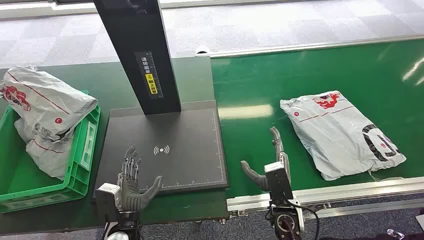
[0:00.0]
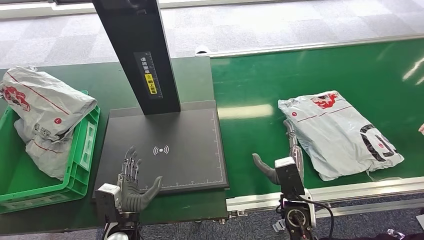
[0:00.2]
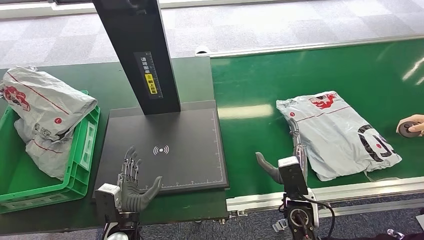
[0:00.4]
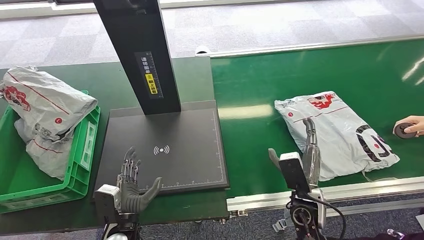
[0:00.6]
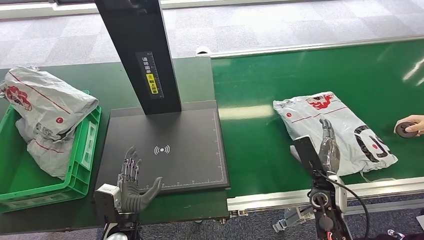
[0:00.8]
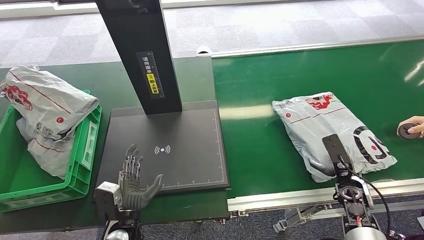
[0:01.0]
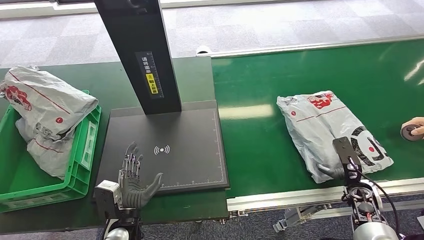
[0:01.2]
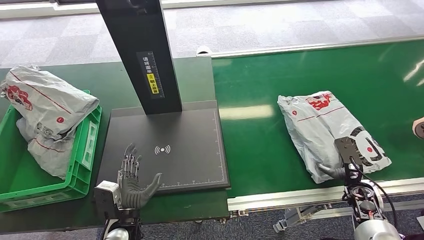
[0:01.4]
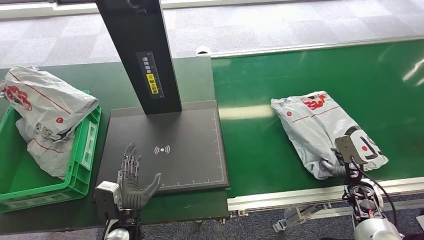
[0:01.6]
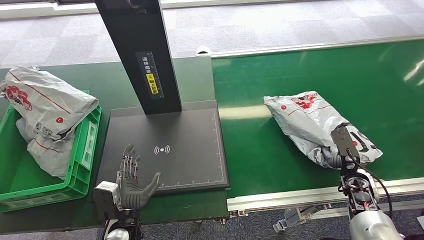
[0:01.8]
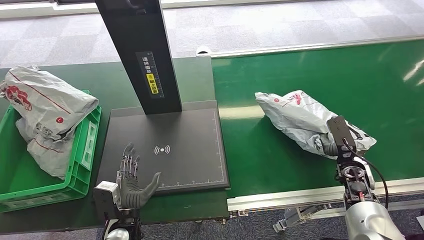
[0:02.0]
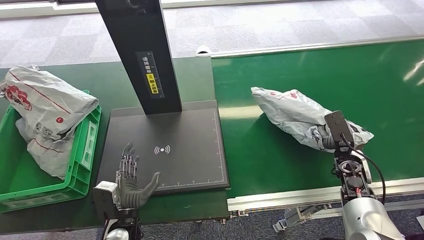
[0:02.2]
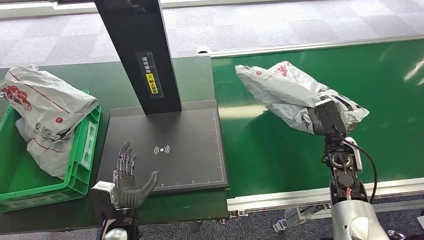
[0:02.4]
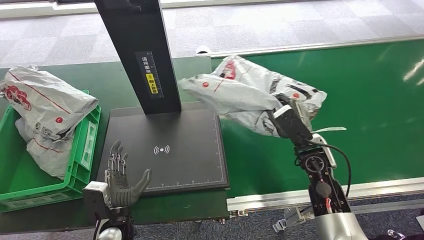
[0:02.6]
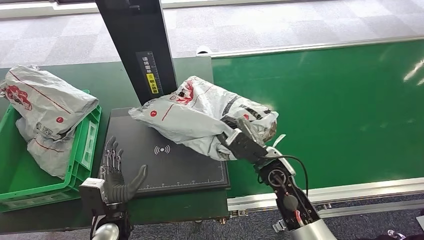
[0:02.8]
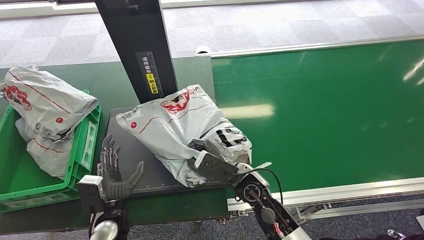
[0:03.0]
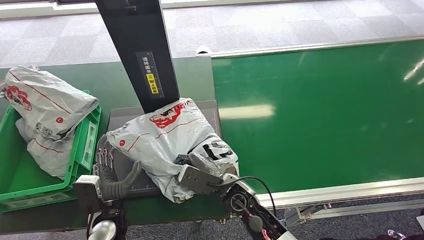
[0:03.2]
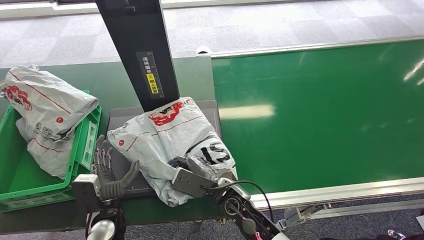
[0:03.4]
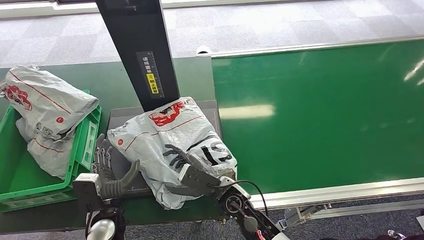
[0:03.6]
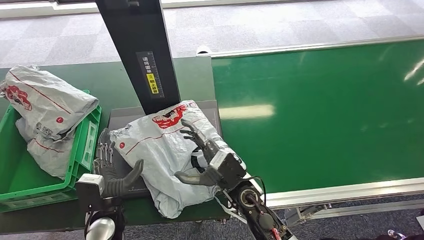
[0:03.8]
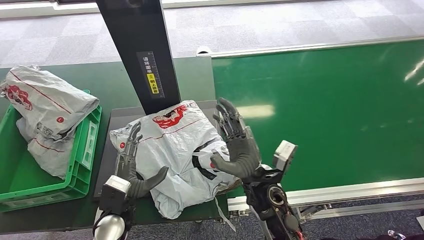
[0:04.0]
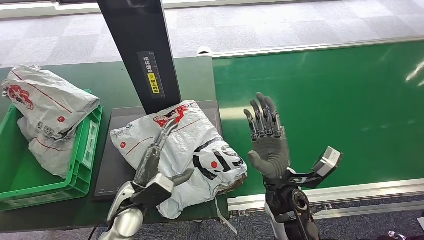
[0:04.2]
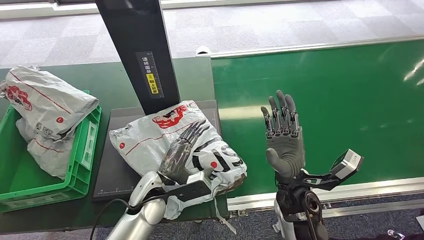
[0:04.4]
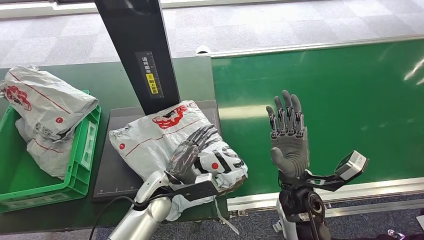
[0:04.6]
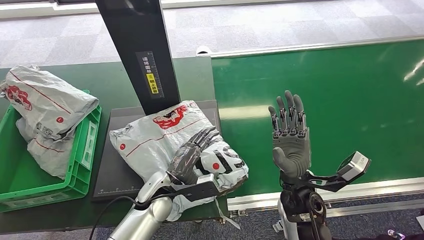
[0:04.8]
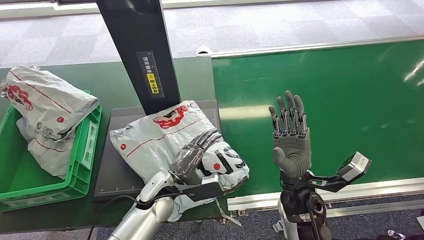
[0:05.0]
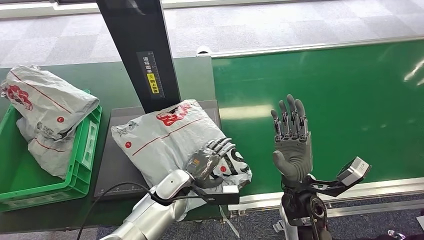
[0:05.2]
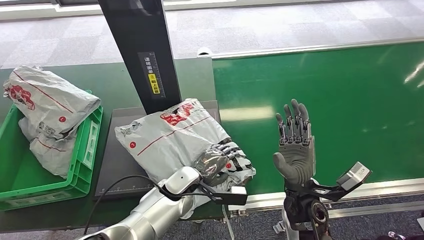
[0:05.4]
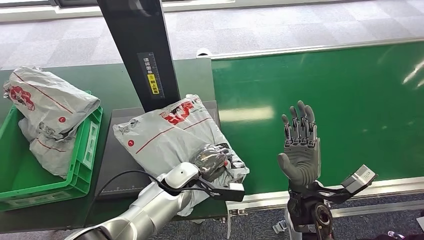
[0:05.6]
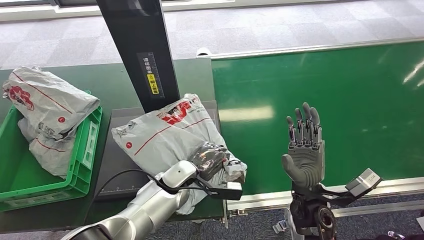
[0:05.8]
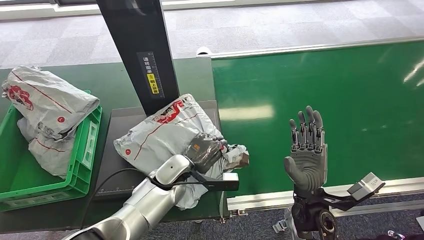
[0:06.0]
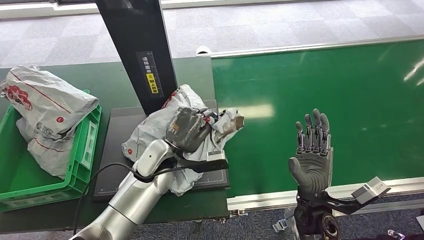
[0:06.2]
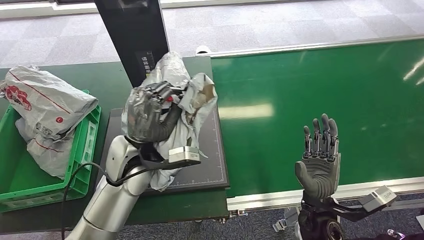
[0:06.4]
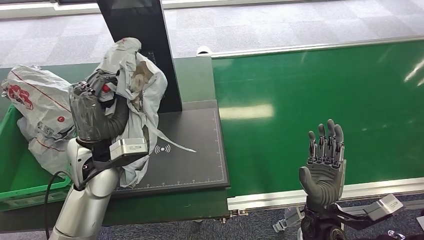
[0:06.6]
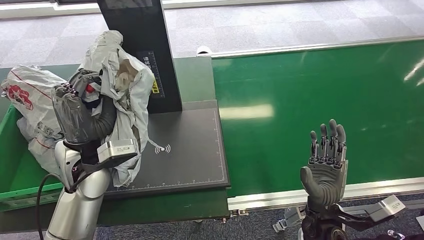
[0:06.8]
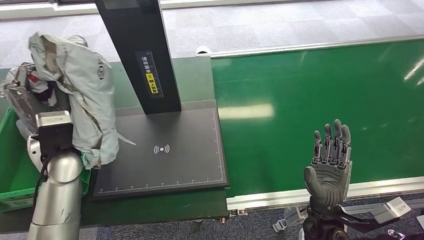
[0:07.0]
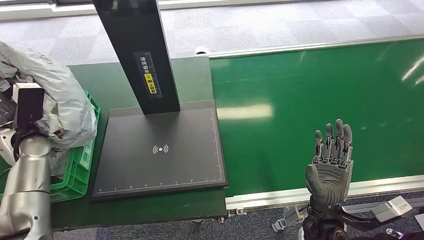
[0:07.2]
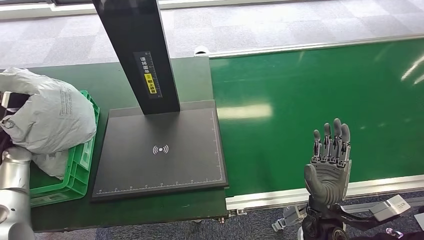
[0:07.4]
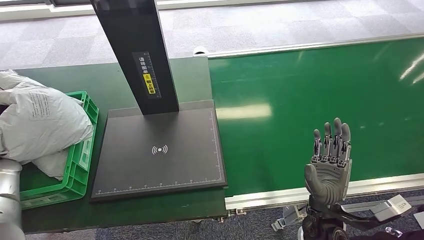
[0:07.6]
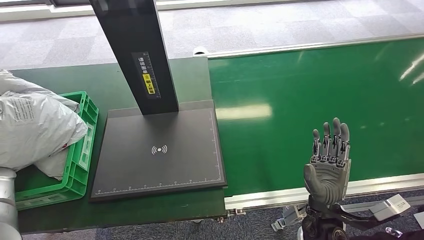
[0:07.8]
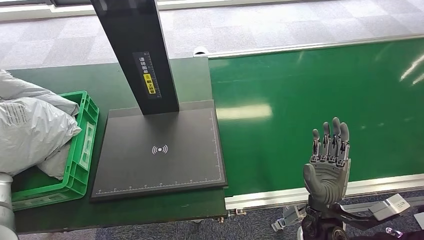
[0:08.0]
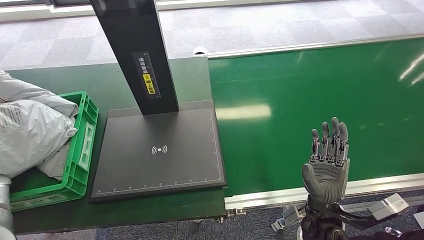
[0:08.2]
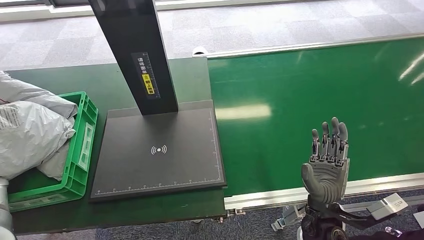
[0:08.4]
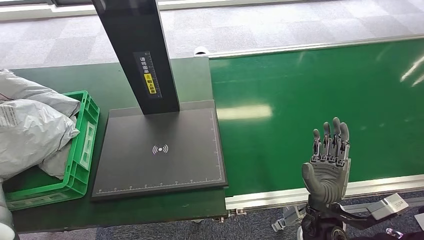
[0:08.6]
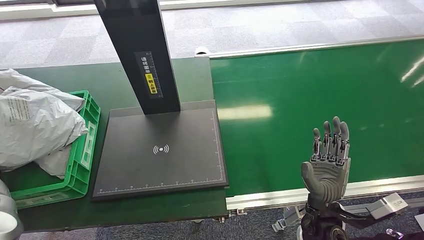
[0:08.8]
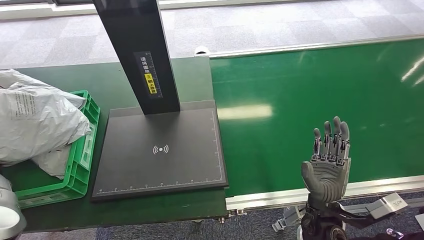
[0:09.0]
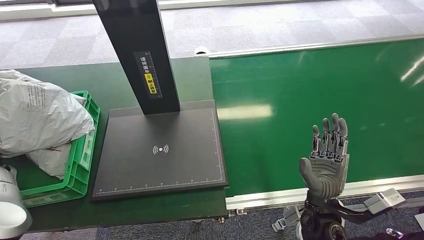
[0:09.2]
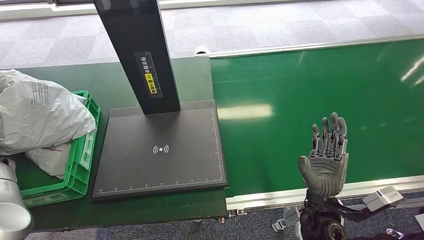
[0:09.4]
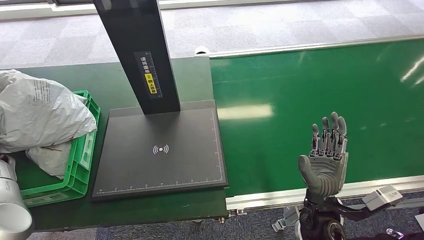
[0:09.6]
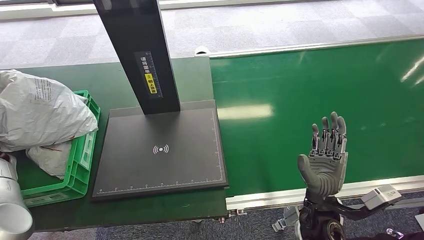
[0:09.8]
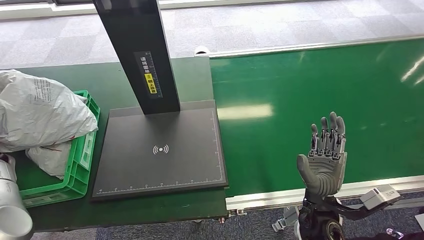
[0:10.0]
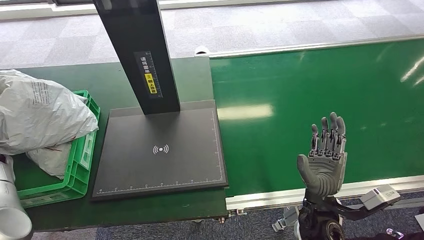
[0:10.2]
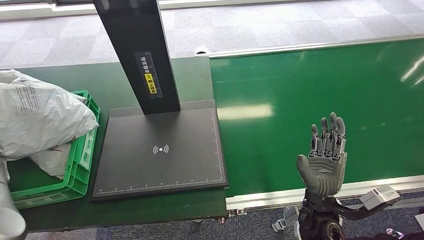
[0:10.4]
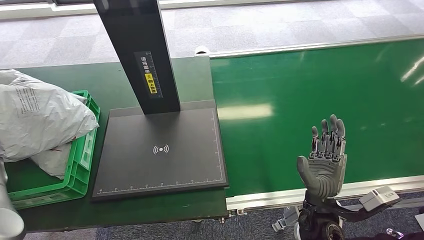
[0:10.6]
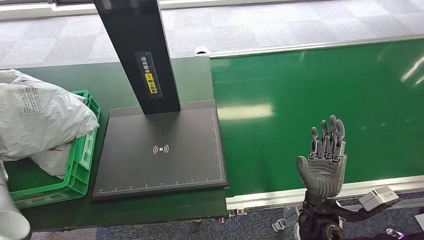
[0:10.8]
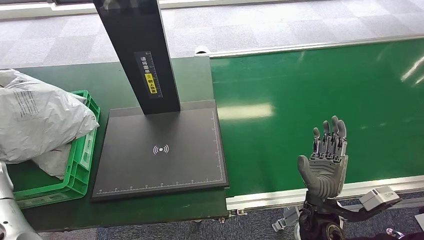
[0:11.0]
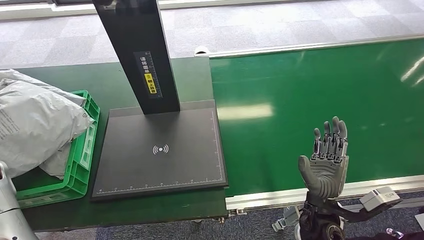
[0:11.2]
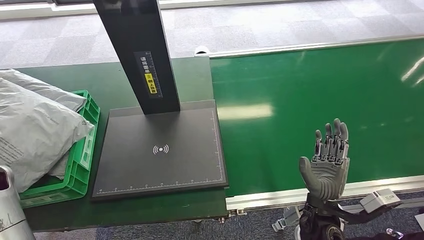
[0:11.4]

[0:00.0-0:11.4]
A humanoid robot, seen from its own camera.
Task of the whole recording: Weigh the package on the weighing device and place it in the left basket.
Step, 0:00.0 to 0:02.6: Pick up the package from the conveyor belt.
Step, 0:03.0 to 0:04.4: Place the package onto the inbound machine.
Step, 0:04.8 to 0:06.2: Pick up the package from the inbound machine.
Step, 0:07.0 to 0:11.4: Place the package into the parcel locker.
0:07.2 to 0:08.6: The left hand shifts roughly 20 cm to the left, downward and backward.
0:08.6 to 0:10.0: The left hand shifts approximately 10 cm upward and forward.
0:10.0 to 0:11.4: The left hand heads to the right, backward and upward, covering approximately 15 cm.

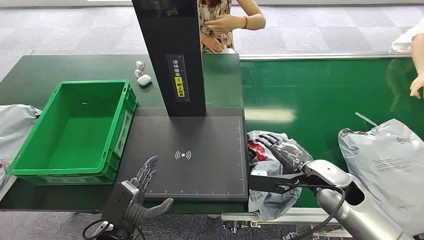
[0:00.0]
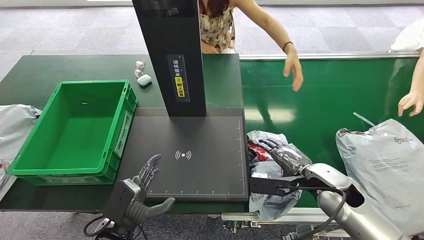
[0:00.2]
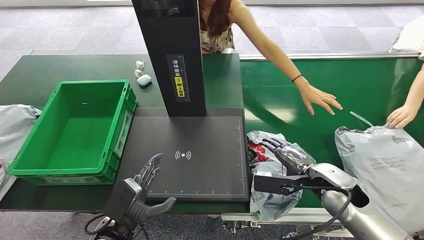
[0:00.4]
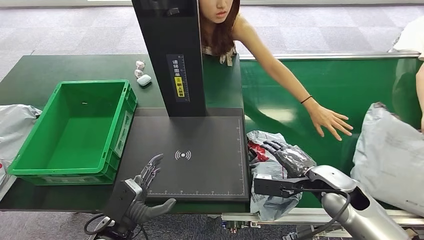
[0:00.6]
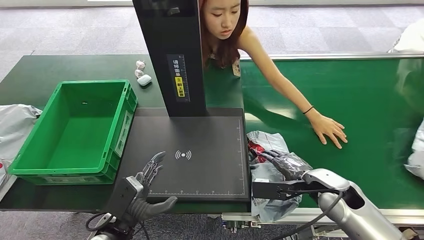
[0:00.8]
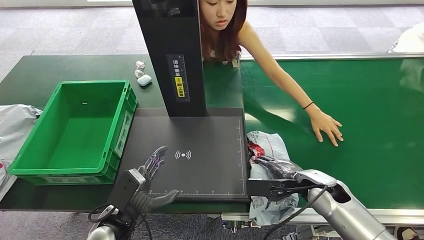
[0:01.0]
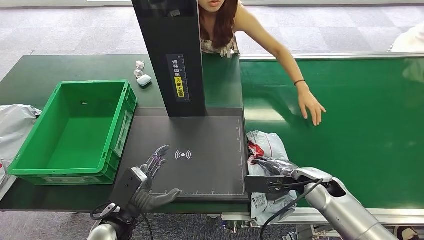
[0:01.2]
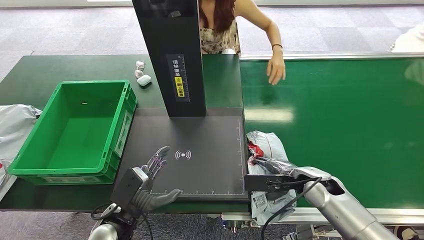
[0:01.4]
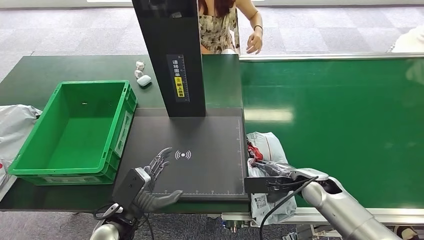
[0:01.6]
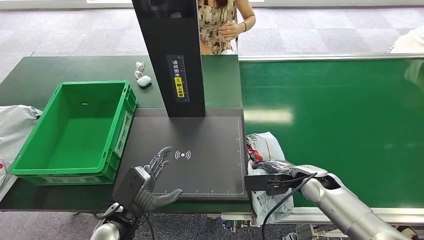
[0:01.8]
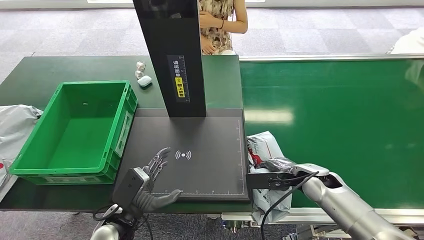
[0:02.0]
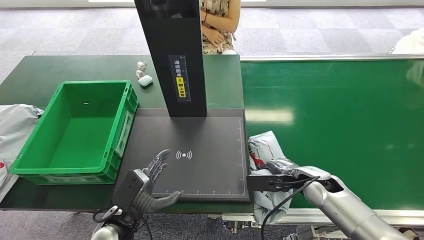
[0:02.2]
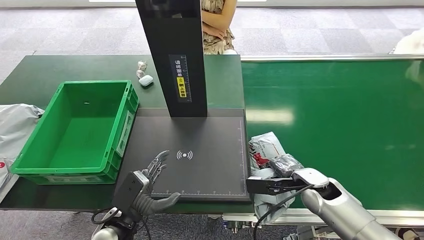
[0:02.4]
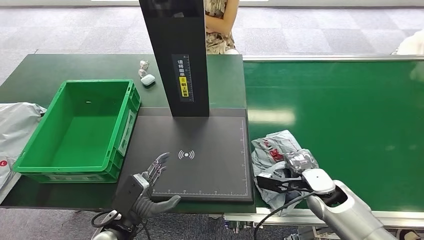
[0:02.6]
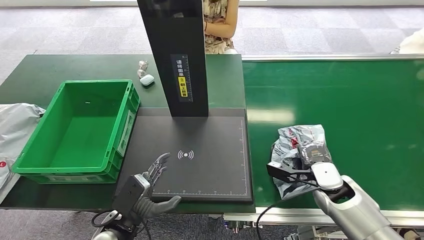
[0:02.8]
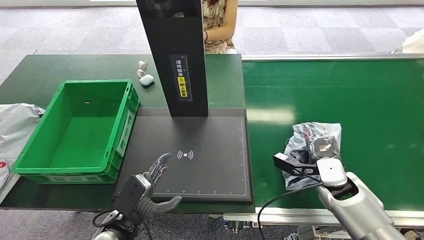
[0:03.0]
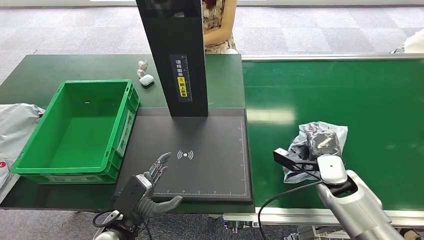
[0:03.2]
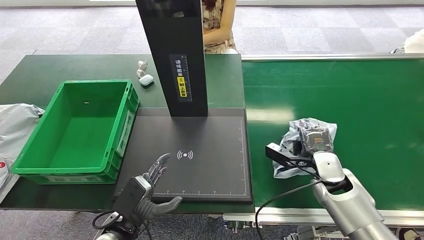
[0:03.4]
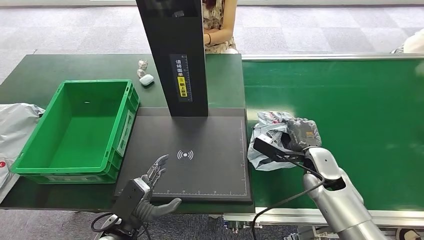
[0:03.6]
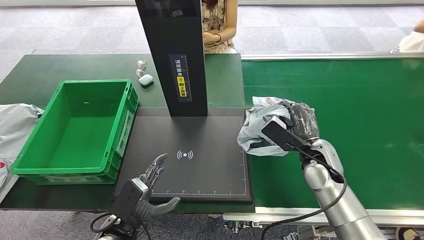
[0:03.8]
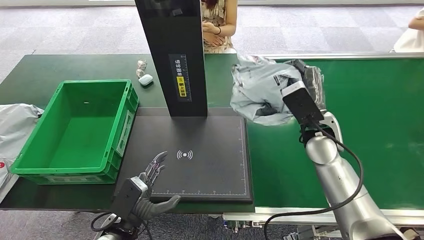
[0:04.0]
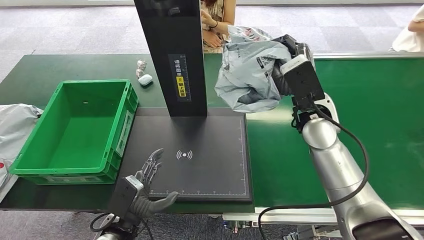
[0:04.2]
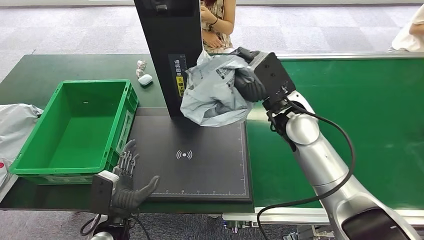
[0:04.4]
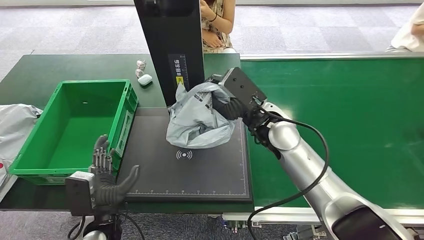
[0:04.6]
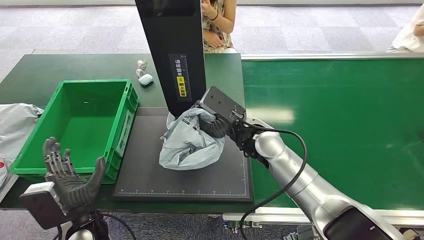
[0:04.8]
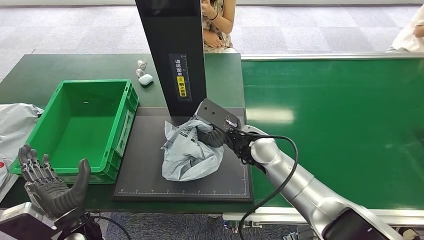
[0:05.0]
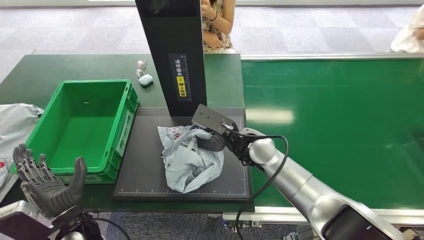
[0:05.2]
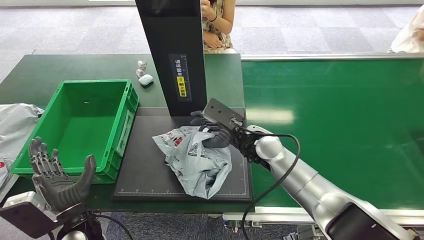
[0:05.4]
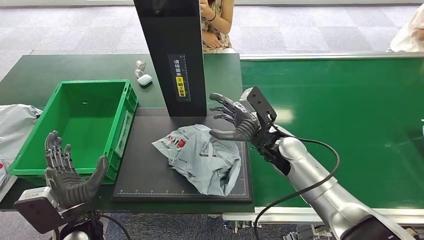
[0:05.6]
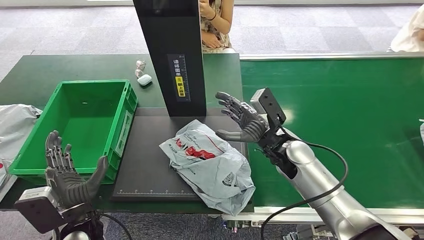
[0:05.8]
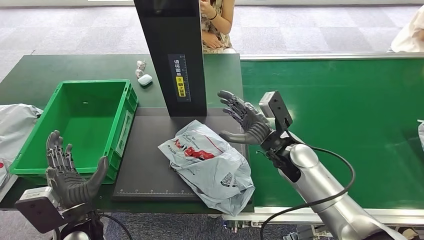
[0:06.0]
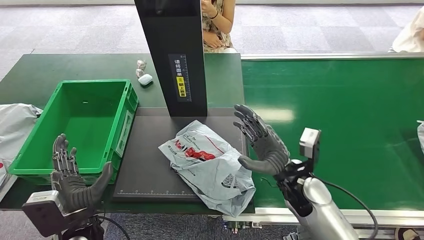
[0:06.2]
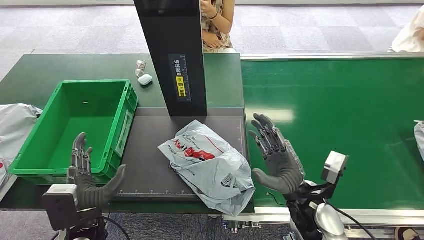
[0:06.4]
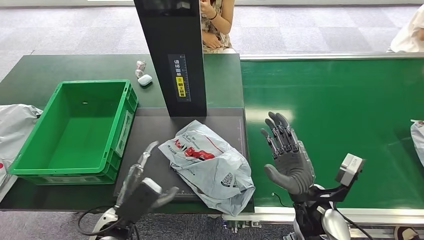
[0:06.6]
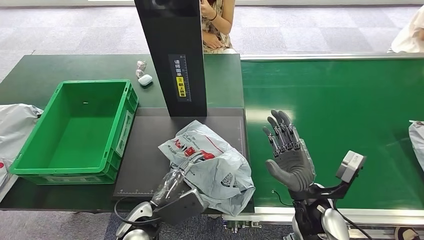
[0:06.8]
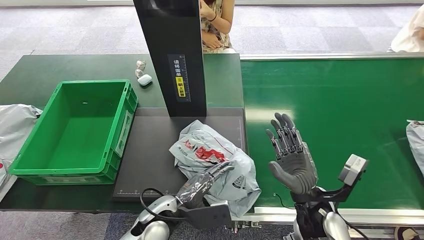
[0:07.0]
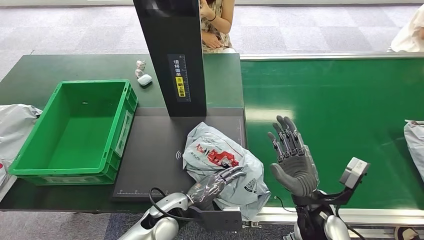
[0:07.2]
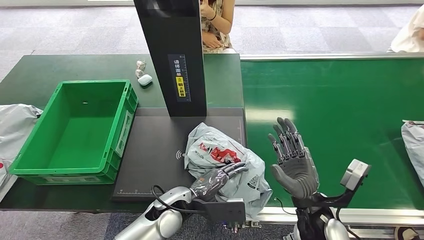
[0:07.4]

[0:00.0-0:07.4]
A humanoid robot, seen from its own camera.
Task of the whole recording: Weigh the package on the weighing device and place it in the left basket.
Step, 0:00.0 to 0:04.0: Pick up the package from the conveyor belt.
Step, 0:04.2 to 0:06.6: Place the package onto the inbound machine.
